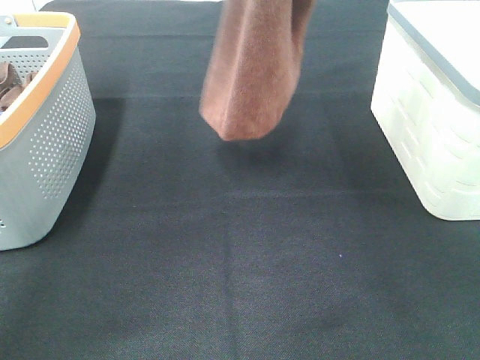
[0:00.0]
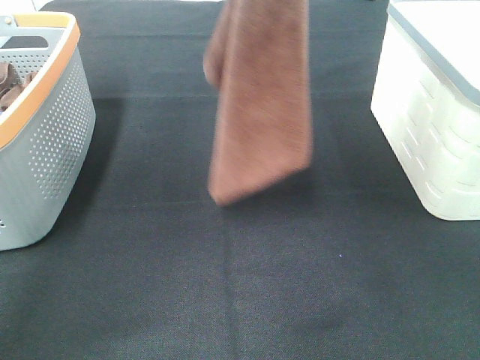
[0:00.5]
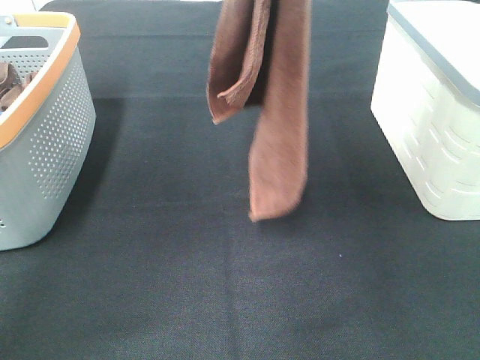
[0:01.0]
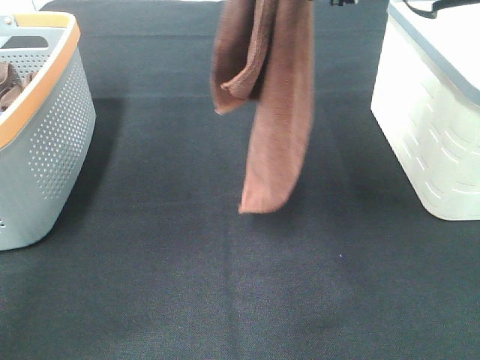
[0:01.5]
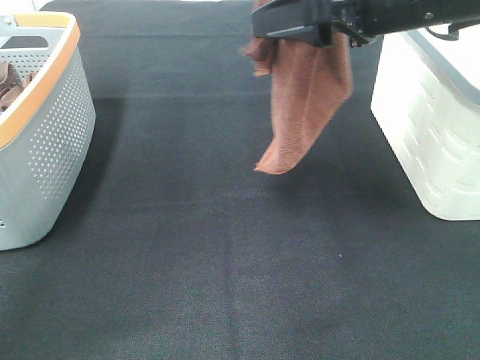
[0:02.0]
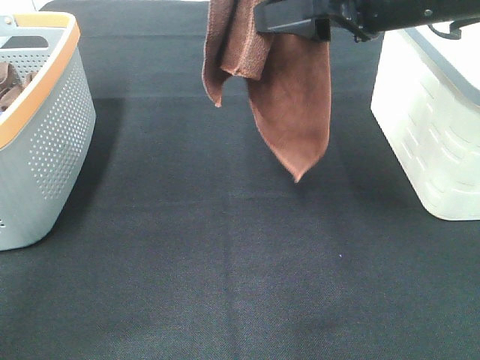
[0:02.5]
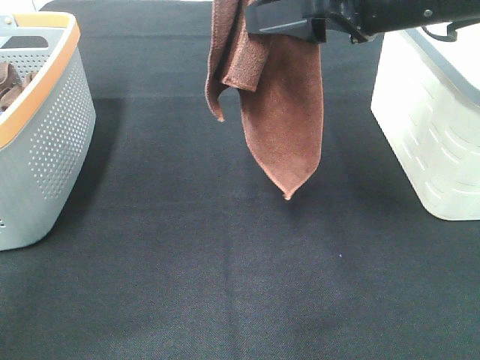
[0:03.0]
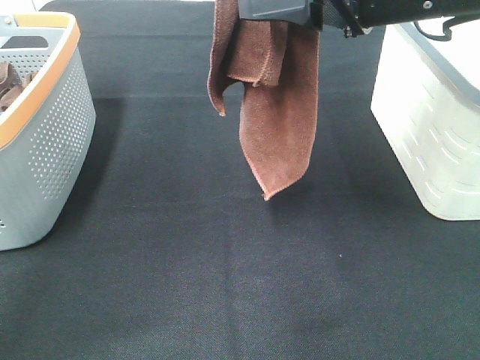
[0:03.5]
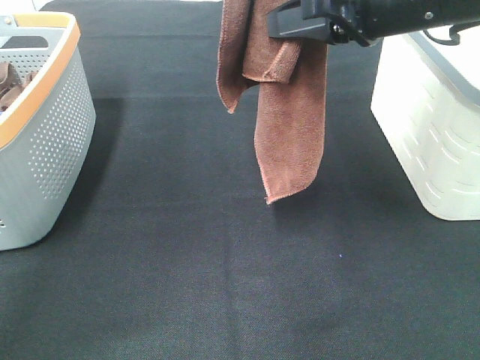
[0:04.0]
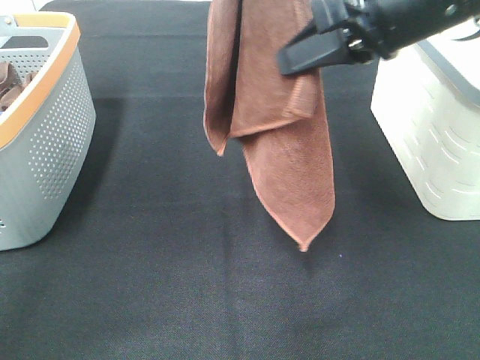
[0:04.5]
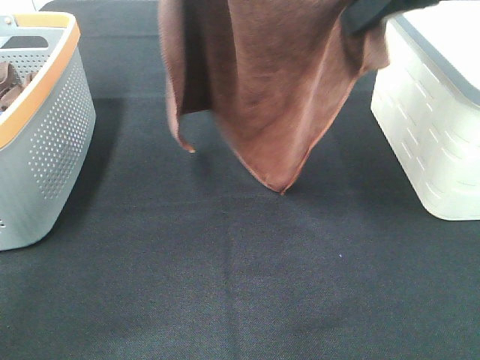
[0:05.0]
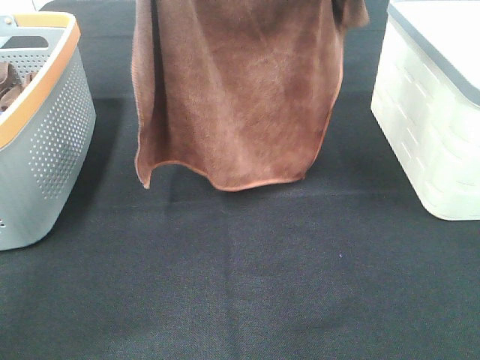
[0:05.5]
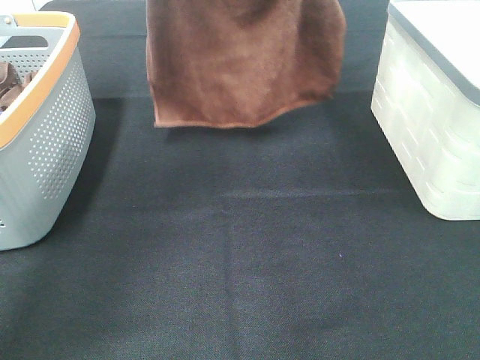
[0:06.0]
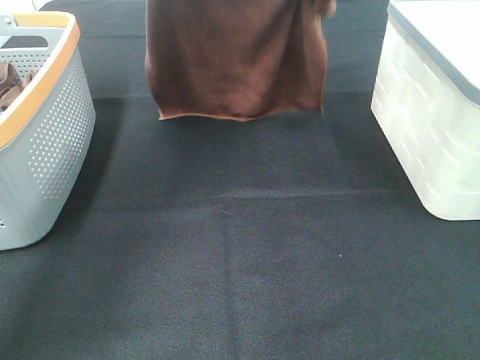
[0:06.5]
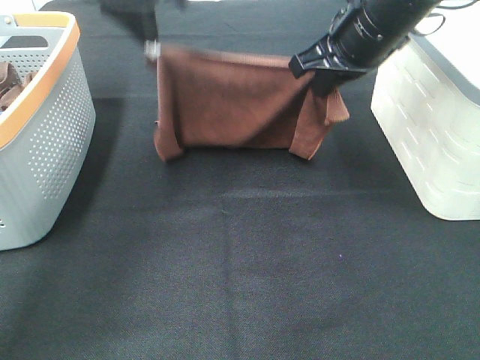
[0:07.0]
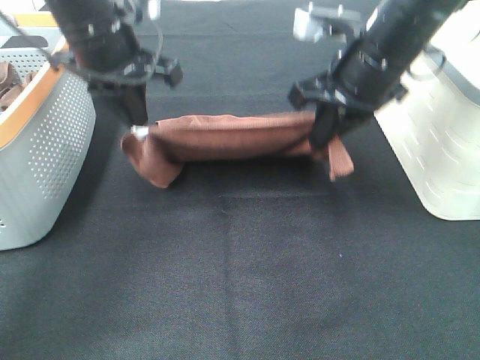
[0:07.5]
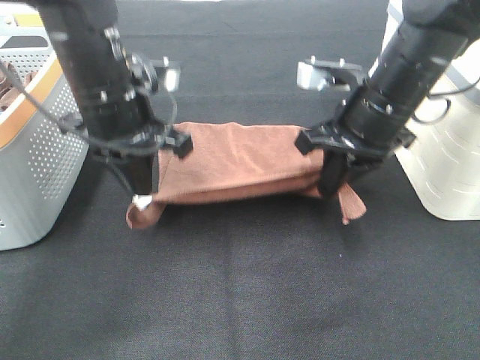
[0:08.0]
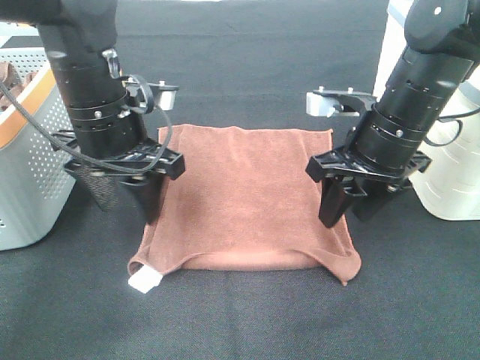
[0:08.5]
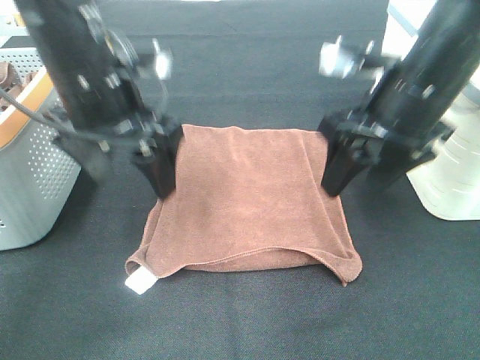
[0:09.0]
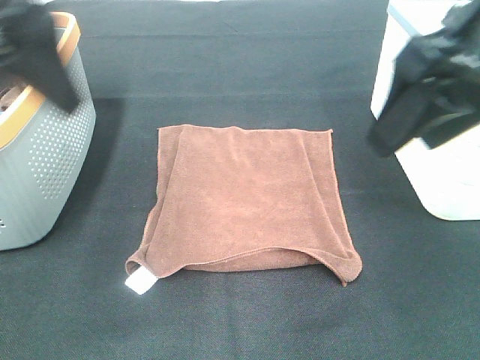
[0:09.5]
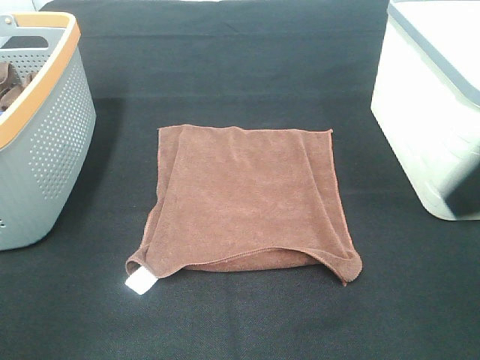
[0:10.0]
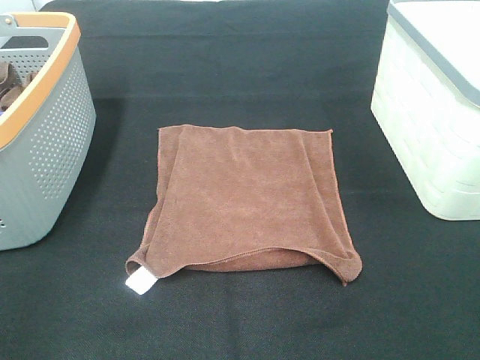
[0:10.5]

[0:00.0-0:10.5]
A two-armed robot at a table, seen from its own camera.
Task of the whole recording: Remove the towel and place it.
Step, 0:01.0 to 0:02.5: Left hand: spread the brown towel flat on the table.
Step, 0:01.0 to 0:02.5: Right hand: spread the brown towel flat on the table.
0:00.0 to 0:02.0: The right gripper travels forward and downward by some 10 cm.
0:02.0 to 0:04.0: The right gripper closes its fingers.
0:04.0 to 0:06.5: The left gripper travels downward, forward and to the left by approximately 20 cm; the right gripper shifts approximately 15 cm forward.
0:06.5 to 0:08.5: Both grippers travel together downward and backward, approximately 20 cm. The right gripper opens up, while the left gripper opens.
0:08.5 to 0:10.5: The left gripper moves backward and to the left, roughly 35 cm; the right gripper shifts approximately 25 cm backward and to the right.

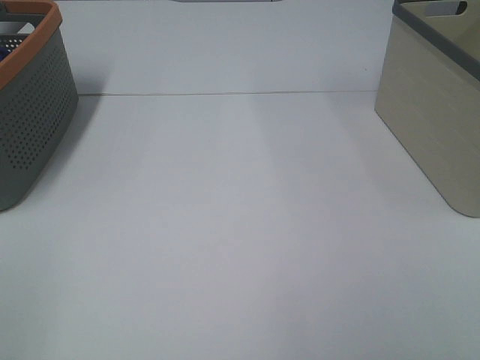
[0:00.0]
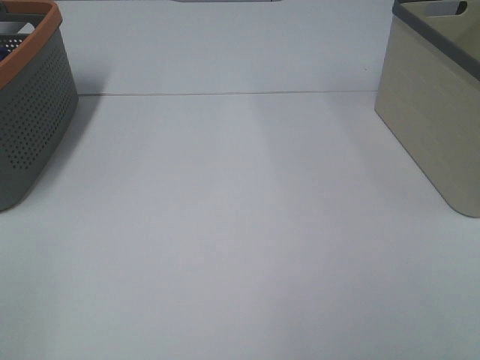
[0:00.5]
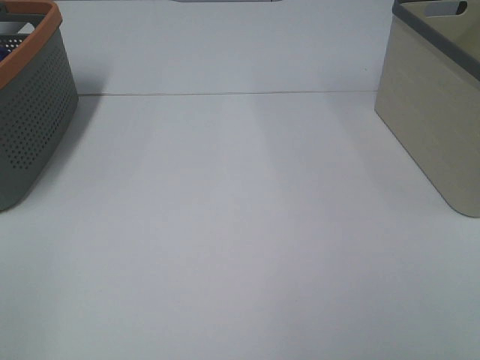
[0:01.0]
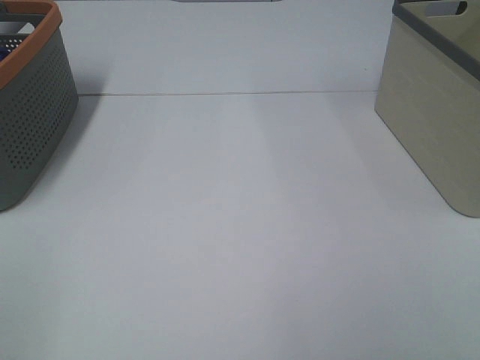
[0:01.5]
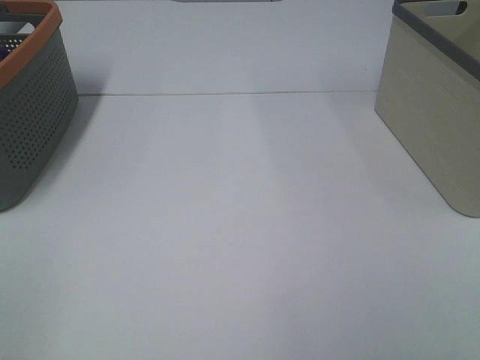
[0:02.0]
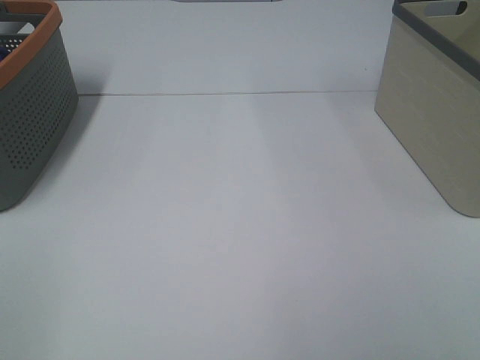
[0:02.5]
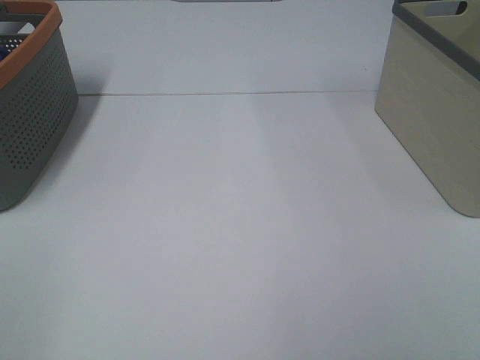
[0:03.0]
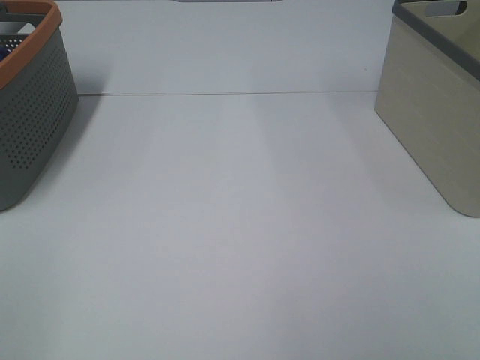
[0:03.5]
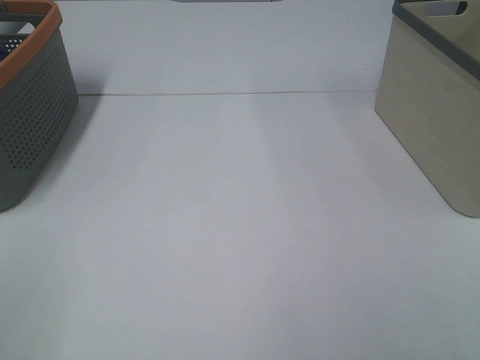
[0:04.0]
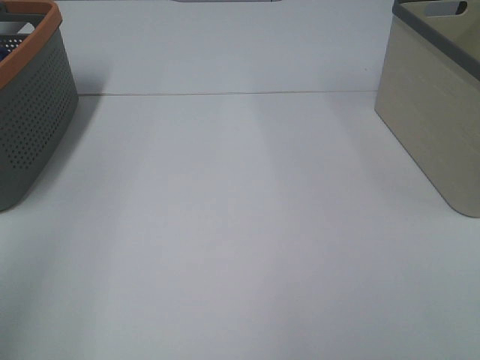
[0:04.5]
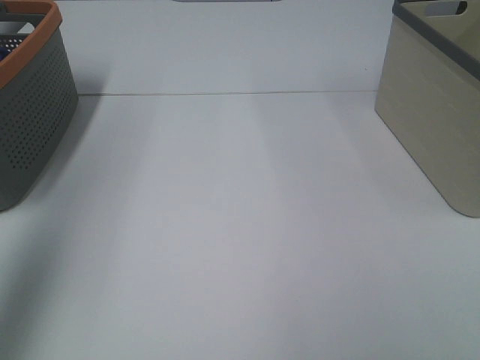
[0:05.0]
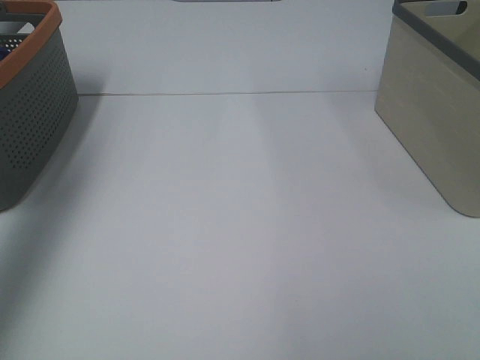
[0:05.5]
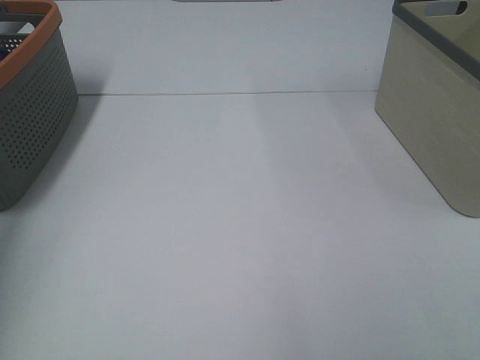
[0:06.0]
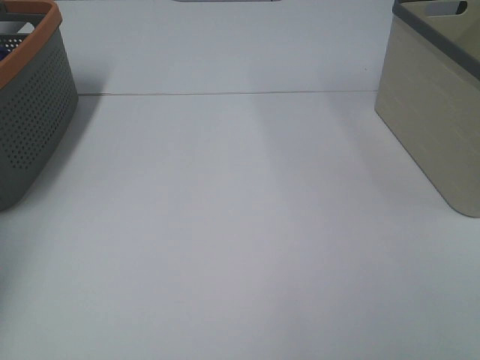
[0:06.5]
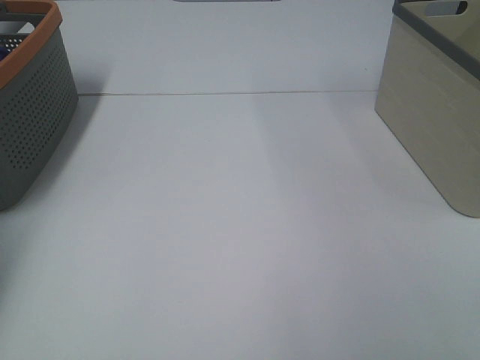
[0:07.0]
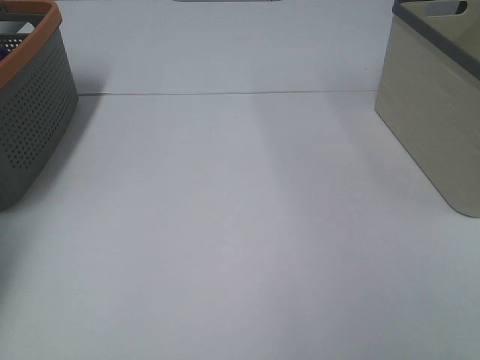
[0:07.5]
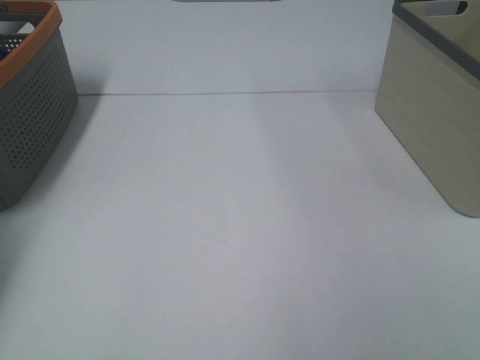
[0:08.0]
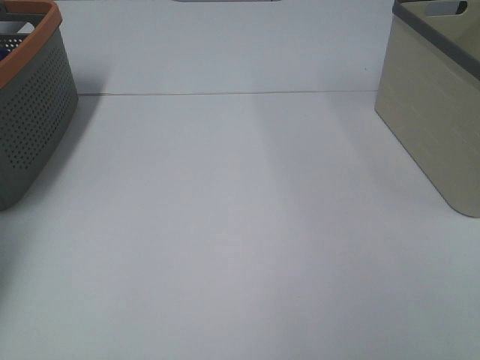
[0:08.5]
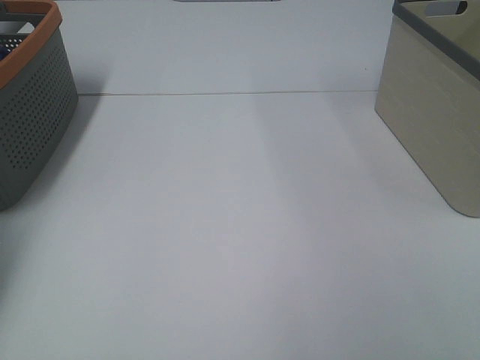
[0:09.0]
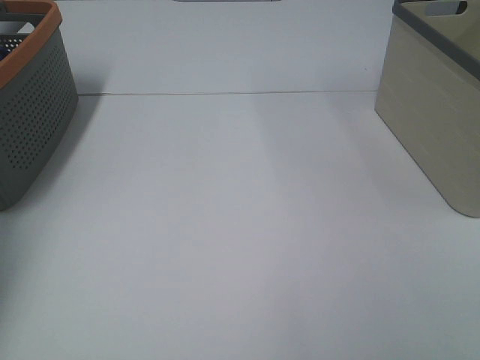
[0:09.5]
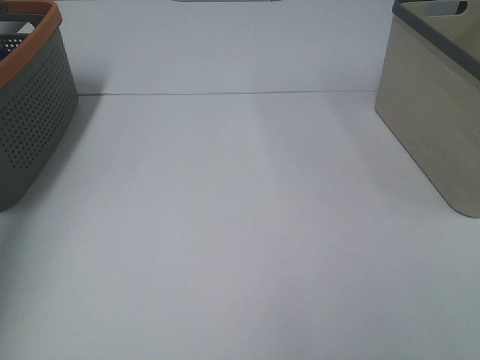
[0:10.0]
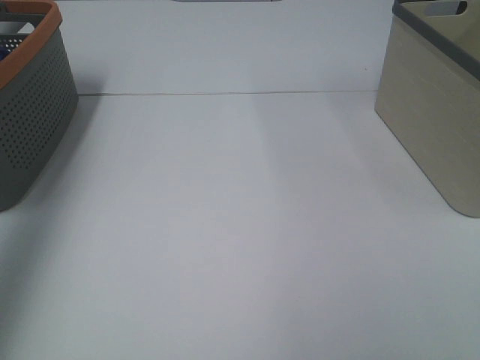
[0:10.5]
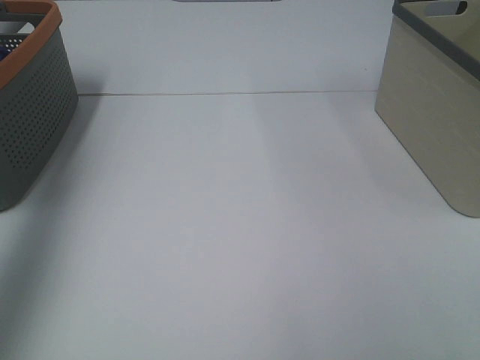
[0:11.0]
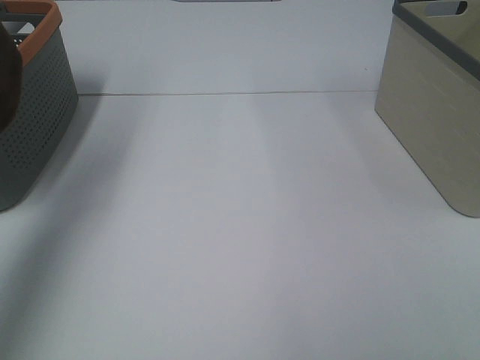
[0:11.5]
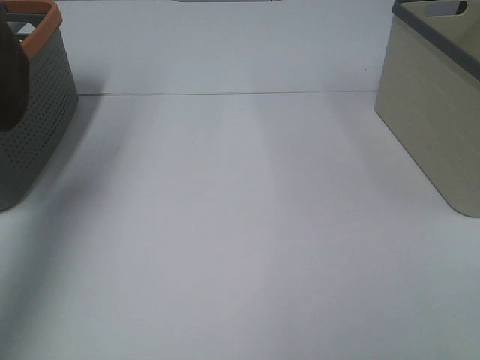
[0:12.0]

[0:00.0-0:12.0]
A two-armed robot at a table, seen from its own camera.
Task of the whole recording: Remove the towel and place it.
0:00.0 to 0:04.0: Neither gripper changes place.
0:04.0 to 0:06.0: The left gripper moves forward, about 35 cm.
0:10.0 to 0:12.0: The left gripper travels upward and backward by approximately 30 cm.

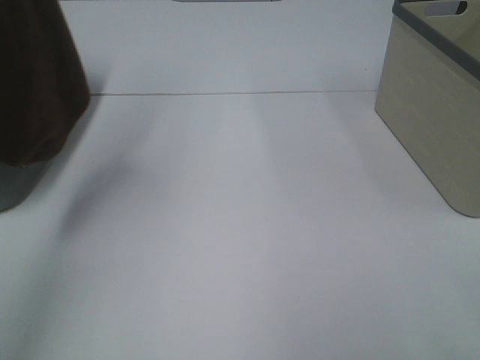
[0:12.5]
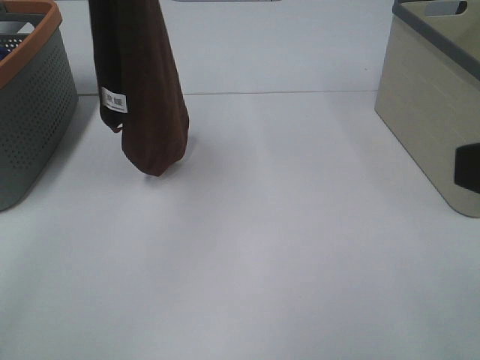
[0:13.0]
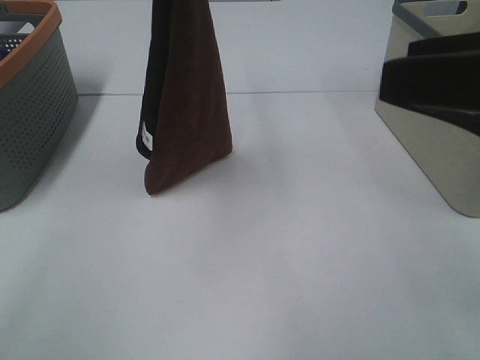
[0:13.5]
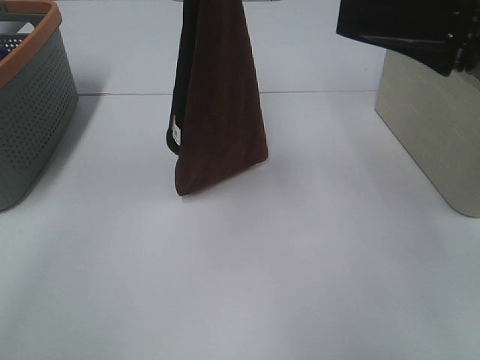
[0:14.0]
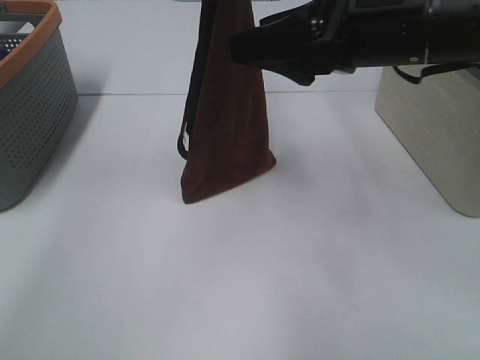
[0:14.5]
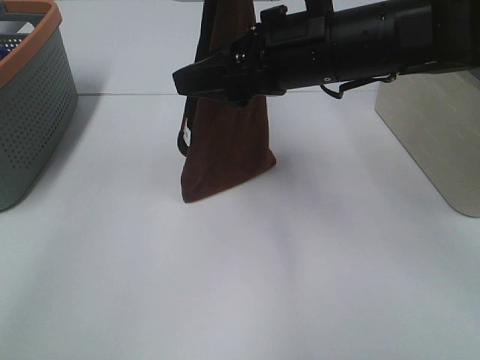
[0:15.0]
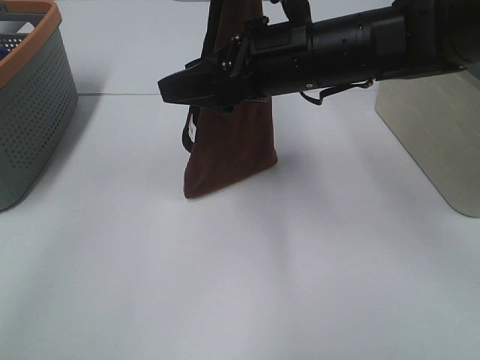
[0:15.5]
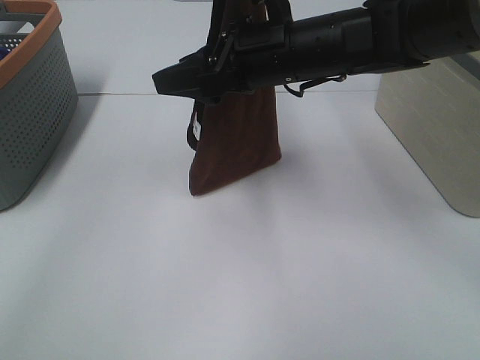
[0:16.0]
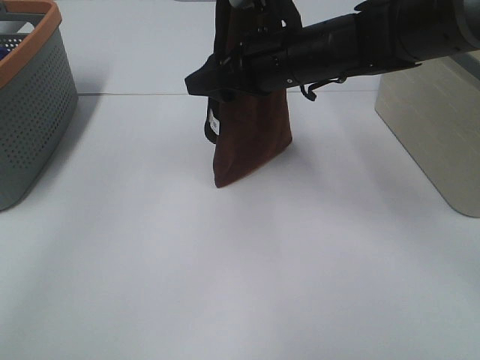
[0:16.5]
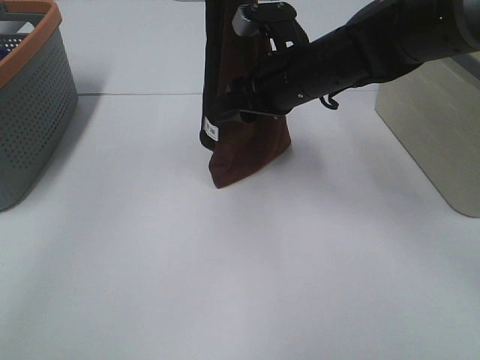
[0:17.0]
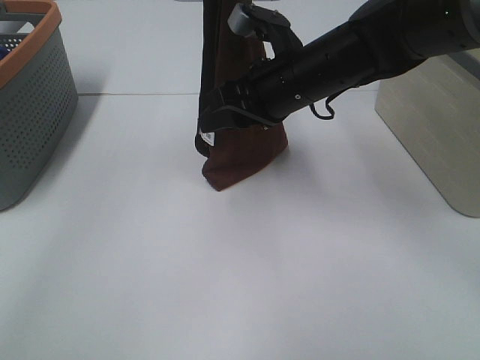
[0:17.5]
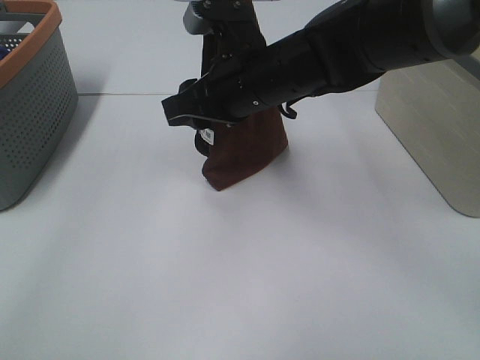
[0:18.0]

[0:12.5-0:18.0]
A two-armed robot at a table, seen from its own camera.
Task of the whole recording: Remove the towel and place it.
0:12.5 to 0:14.5: The left gripper heads to the right and downward, covering about 25 cm, while the right gripper moves forward and to the left, roughly 25 cm.
0:14.5 to 0:16.0: The right gripper shifts some 10 cm forward, to the left and downward.
